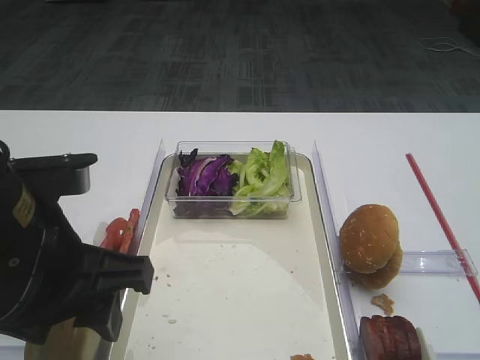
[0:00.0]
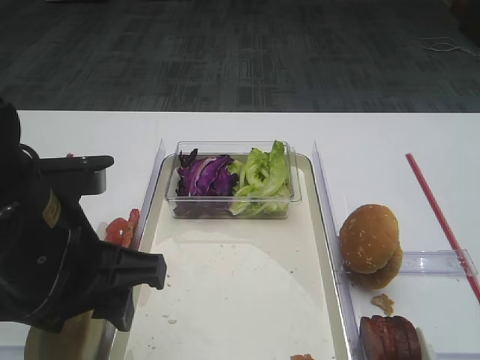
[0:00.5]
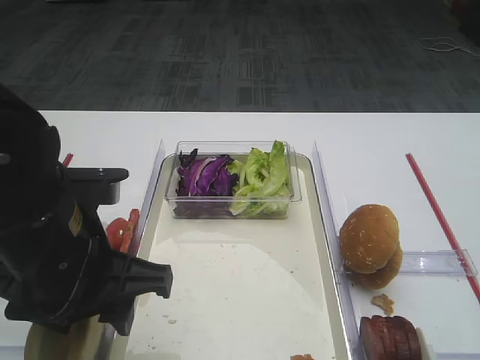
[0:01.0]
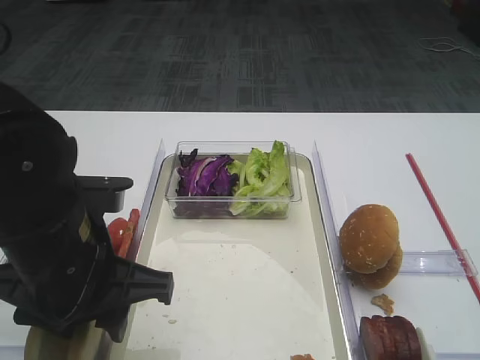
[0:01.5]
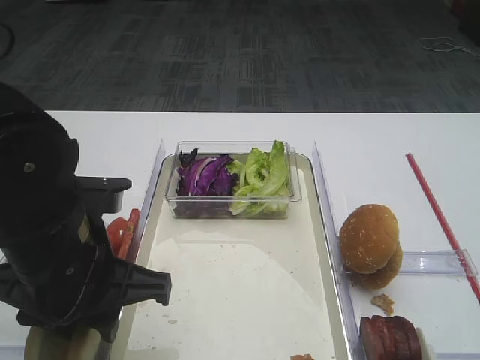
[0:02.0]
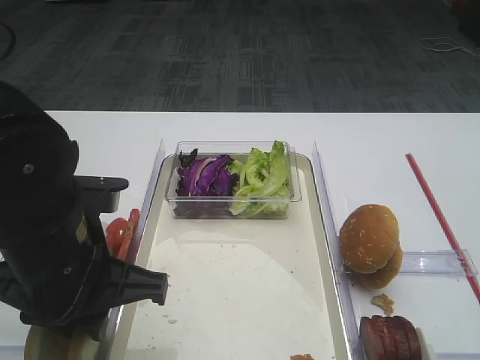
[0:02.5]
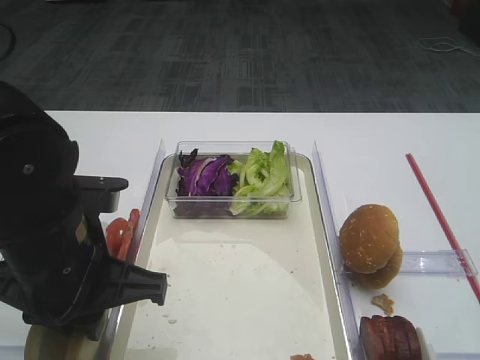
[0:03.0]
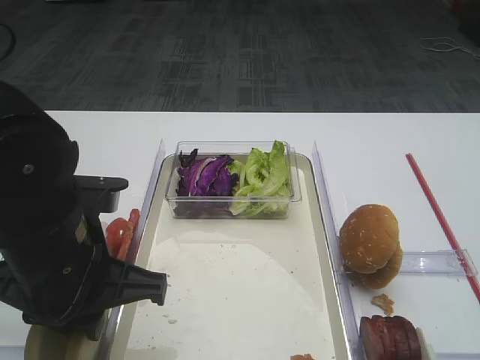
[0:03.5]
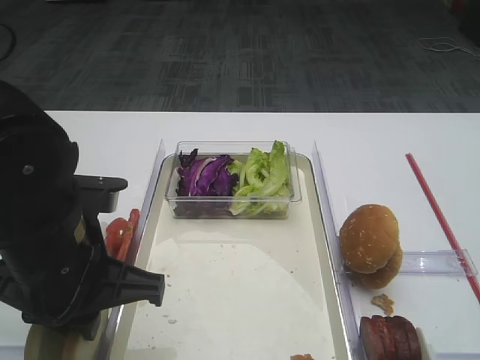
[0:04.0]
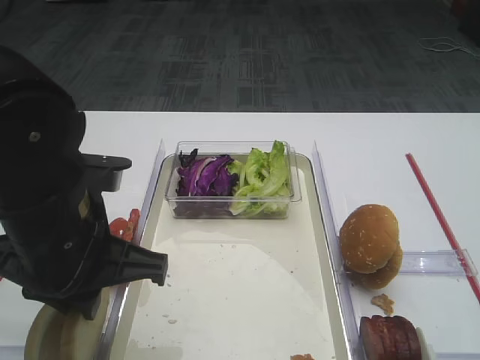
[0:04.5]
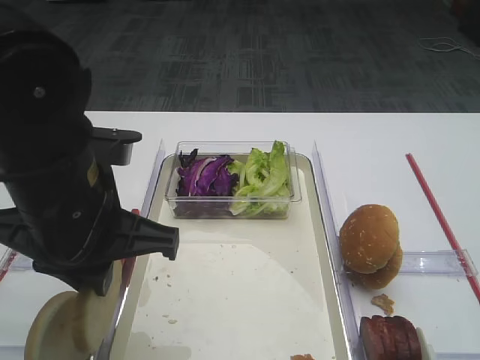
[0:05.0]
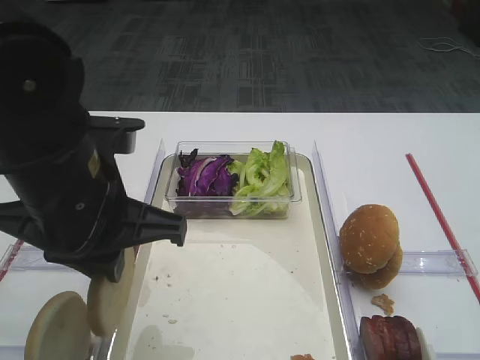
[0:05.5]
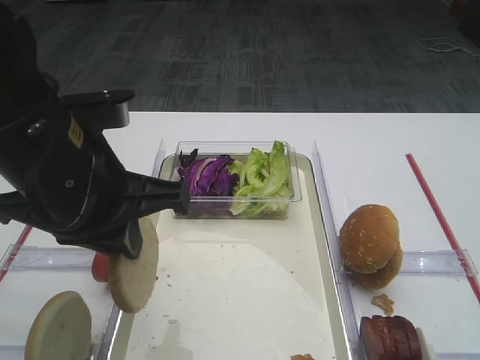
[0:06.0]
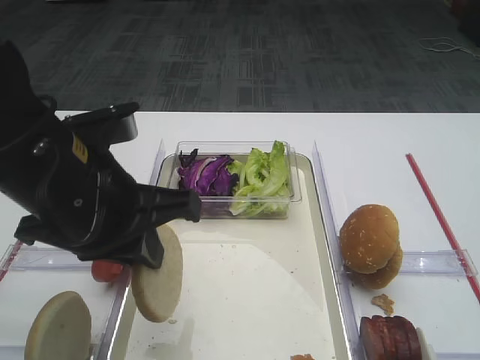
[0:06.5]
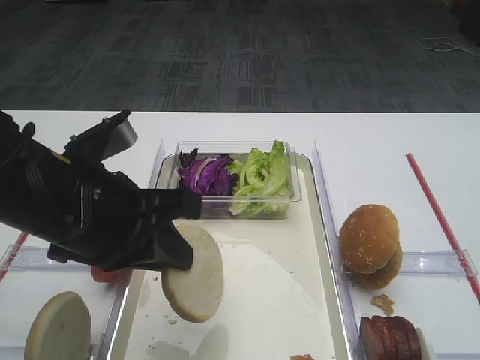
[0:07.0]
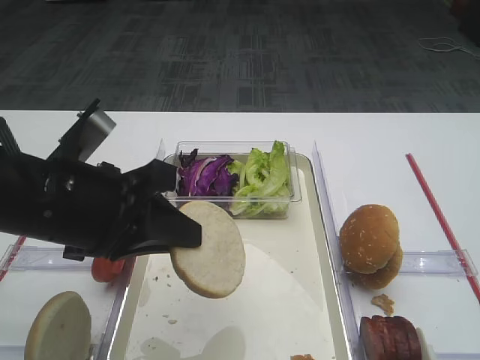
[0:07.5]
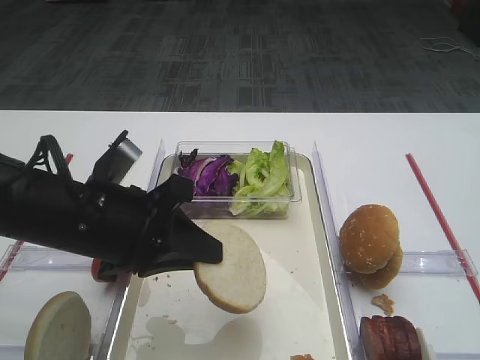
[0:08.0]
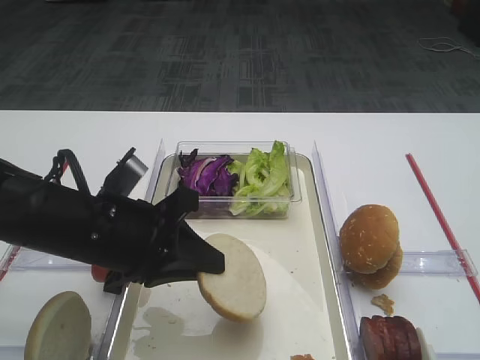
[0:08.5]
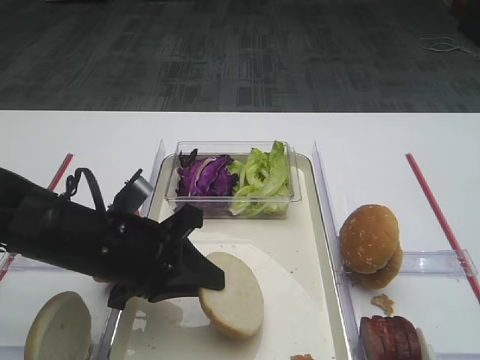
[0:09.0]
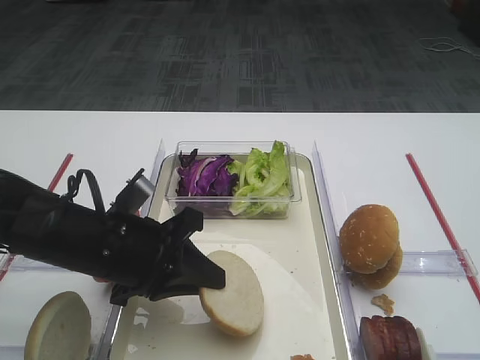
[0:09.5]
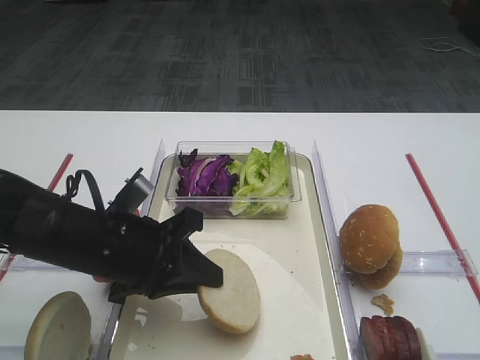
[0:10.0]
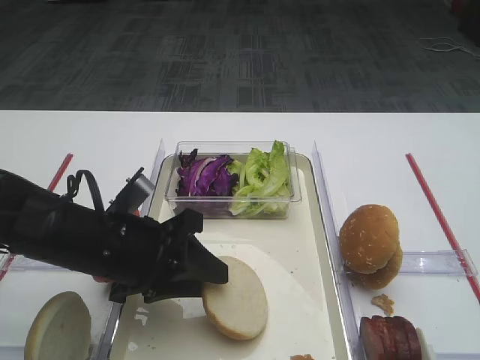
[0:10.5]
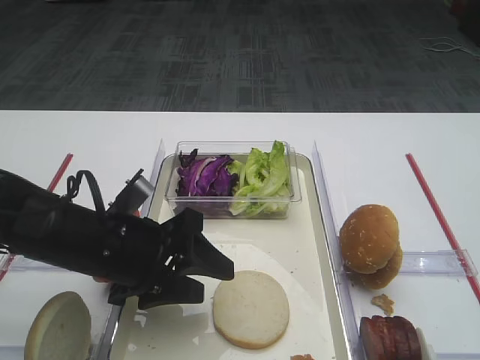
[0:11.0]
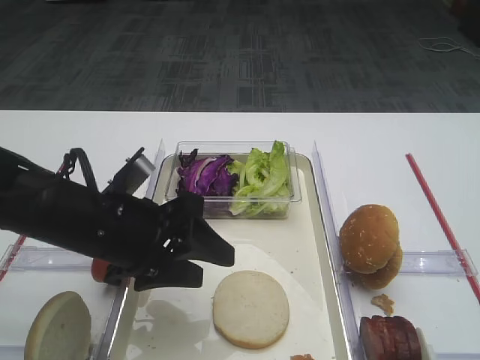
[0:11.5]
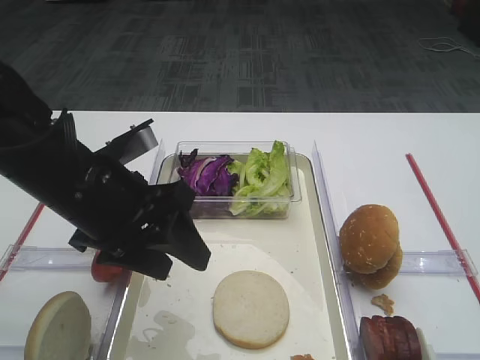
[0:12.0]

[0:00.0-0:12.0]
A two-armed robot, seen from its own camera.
Step, 0:00.0 to 0:05.5: Pick up the bread slice with the left gripper.
Step, 0:06.0 to 0:11.0: Place the bread slice on the tray with the left gripper.
0:00.0 to 0:02.0: The left gripper ends up some 5 cm from where it was, and closes up.
0:02.0 to 0:04.0: The left gripper closes up.
0:04.0 to 0:06.0: The left gripper heads upward, covering some 5 cm.
0:06.0 to 0:08.0: The left gripper moves downward, some 5 cm.
0:08.0 to 0:10.0: The left gripper moves downward, about 5 cm.
0:10.0 to 0:12.0: The left gripper shifts roughly 5 cm upward, and opens its fingers.

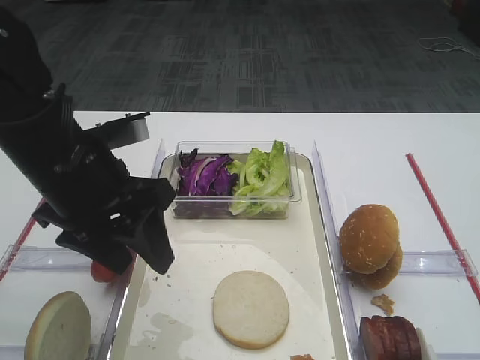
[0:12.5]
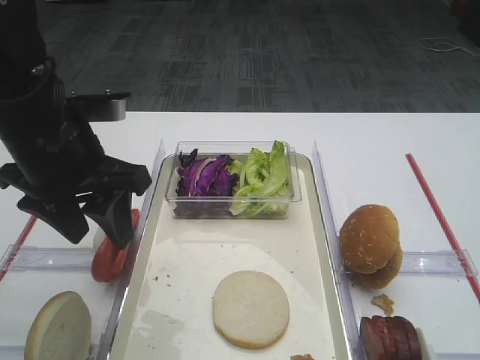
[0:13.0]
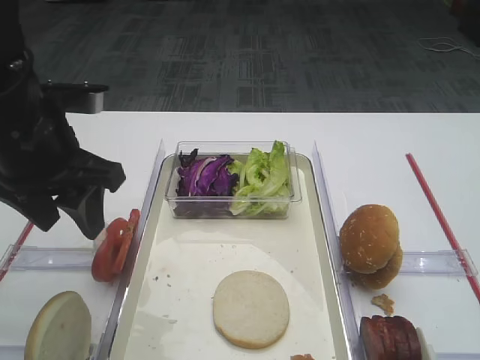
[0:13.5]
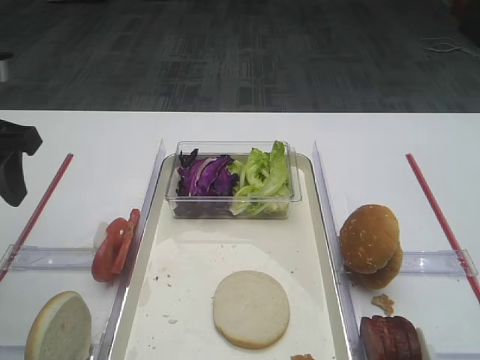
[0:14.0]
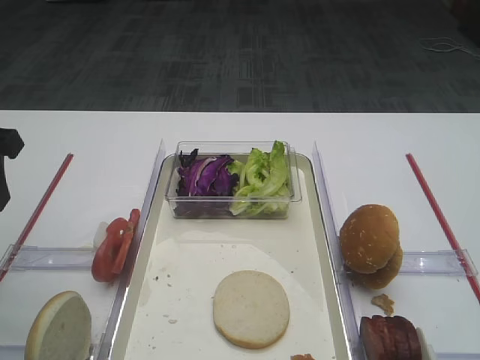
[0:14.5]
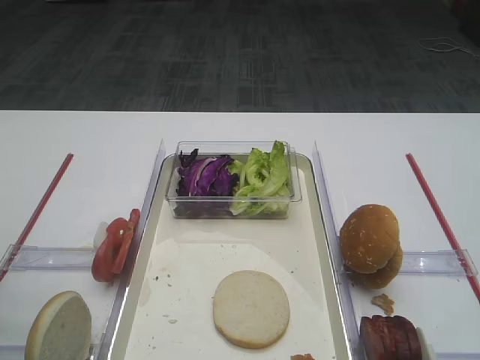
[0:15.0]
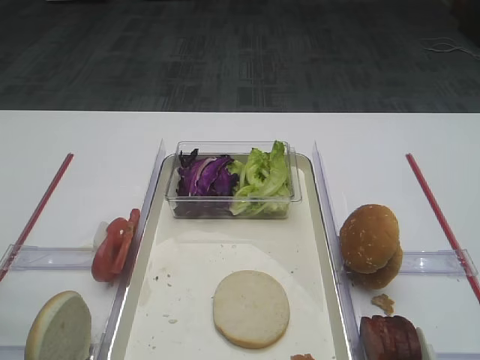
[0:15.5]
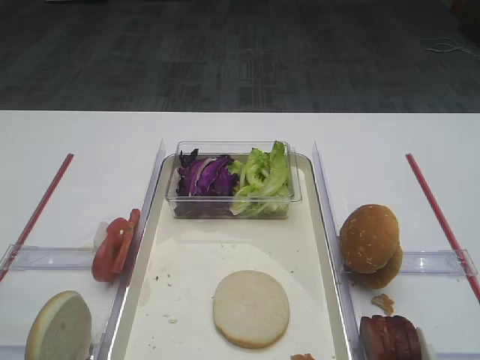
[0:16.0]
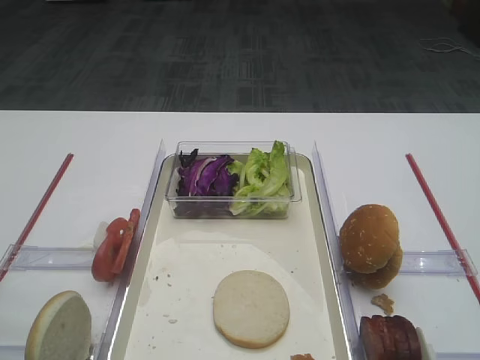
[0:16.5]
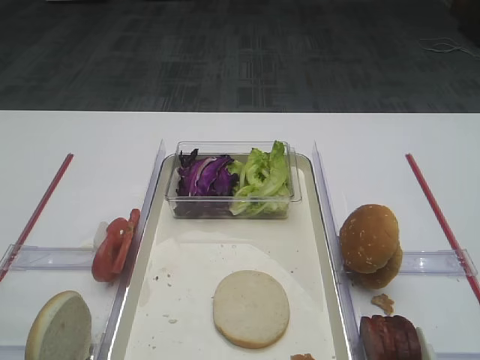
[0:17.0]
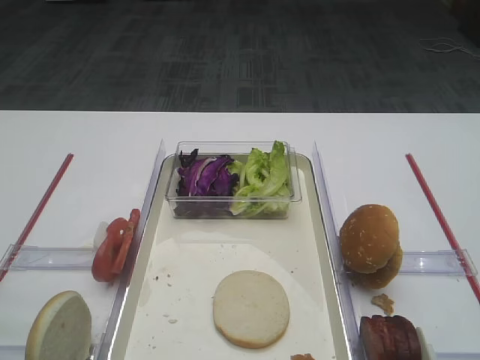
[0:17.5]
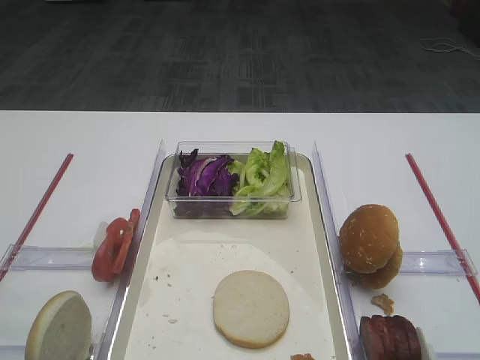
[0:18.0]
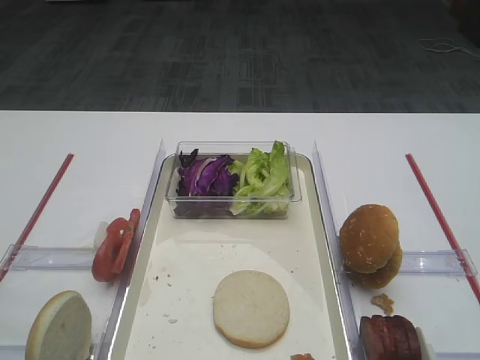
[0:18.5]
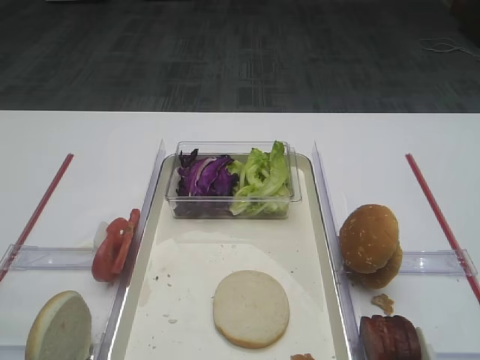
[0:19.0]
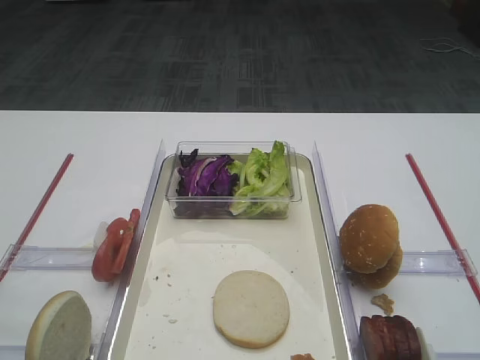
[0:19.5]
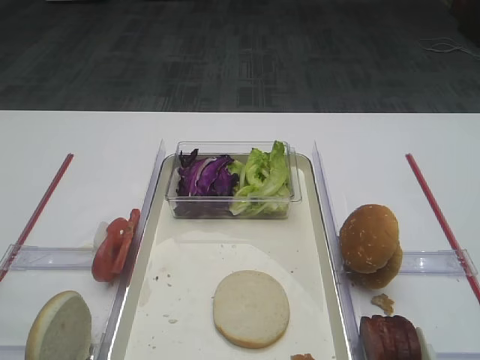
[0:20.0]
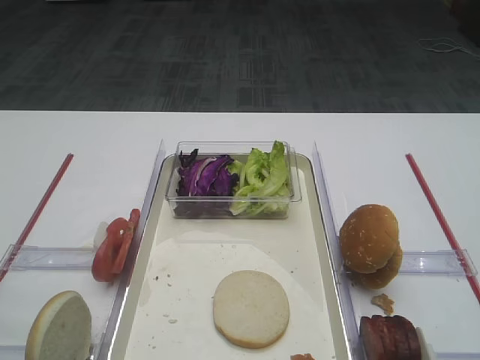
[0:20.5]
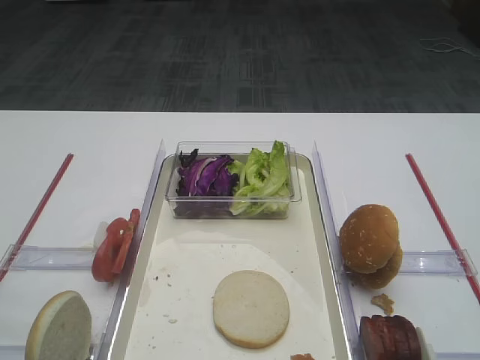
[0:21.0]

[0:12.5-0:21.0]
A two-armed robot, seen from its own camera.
0:12.5 to 0:14.5: The left gripper moves to the left, some 15 cm.
0:14.5 to 0:16.5: The left gripper is displaced backward by about 20 cm.
0:19.0 to 0:21.0: Both grippers stay put.
